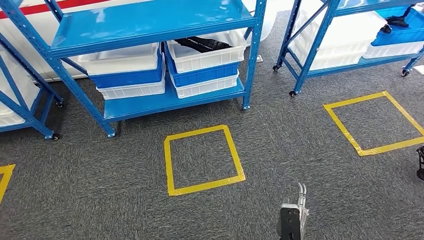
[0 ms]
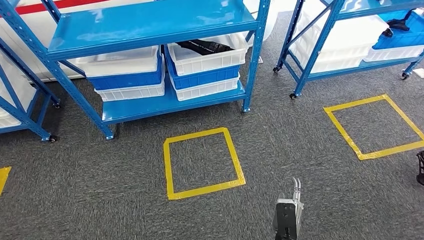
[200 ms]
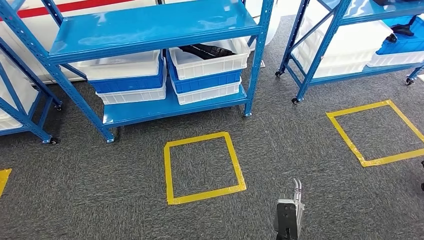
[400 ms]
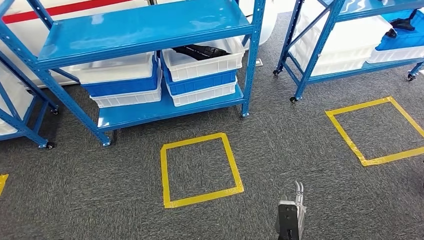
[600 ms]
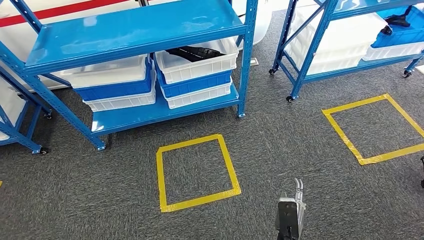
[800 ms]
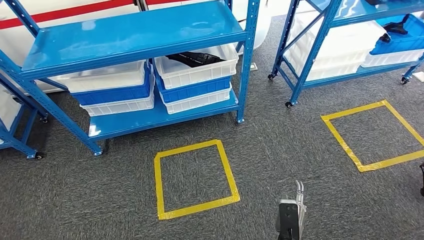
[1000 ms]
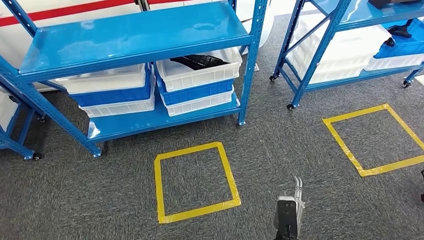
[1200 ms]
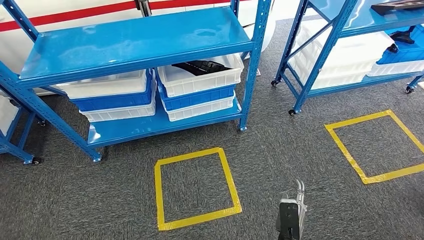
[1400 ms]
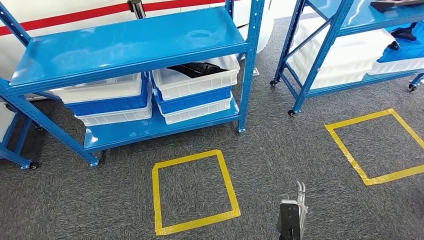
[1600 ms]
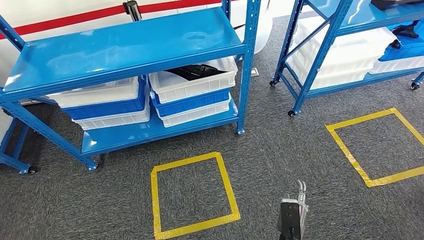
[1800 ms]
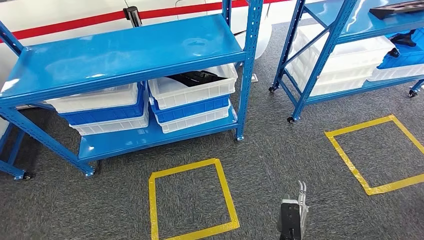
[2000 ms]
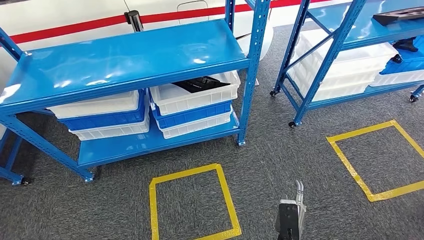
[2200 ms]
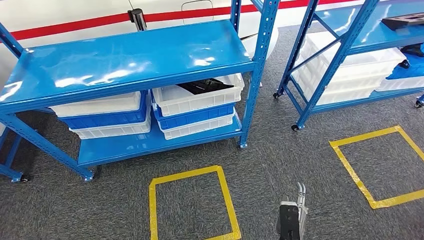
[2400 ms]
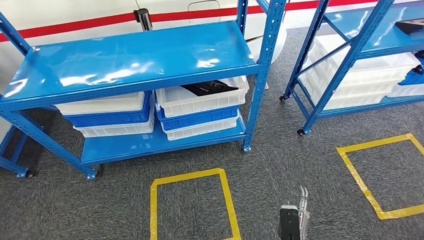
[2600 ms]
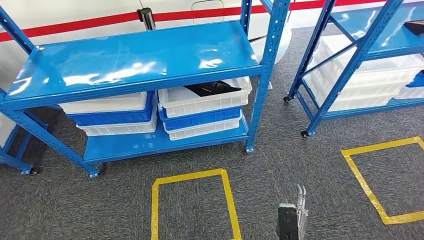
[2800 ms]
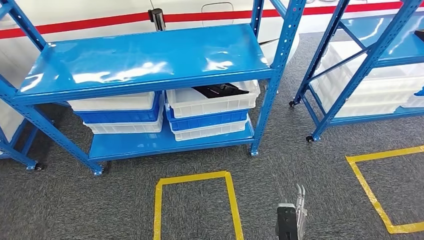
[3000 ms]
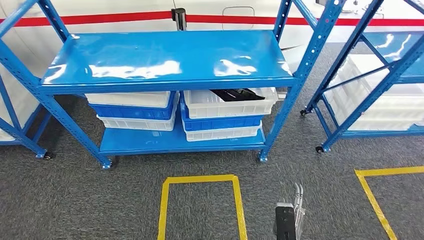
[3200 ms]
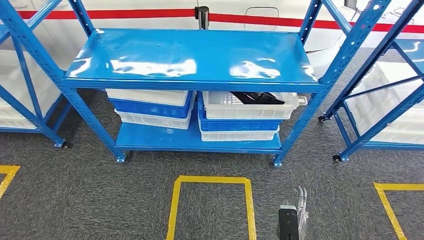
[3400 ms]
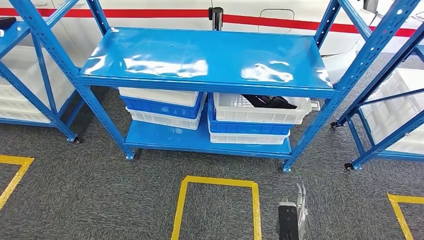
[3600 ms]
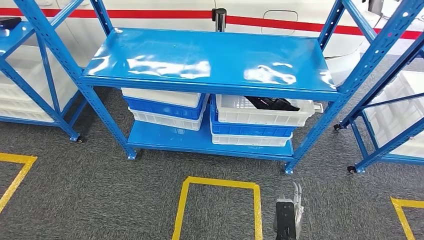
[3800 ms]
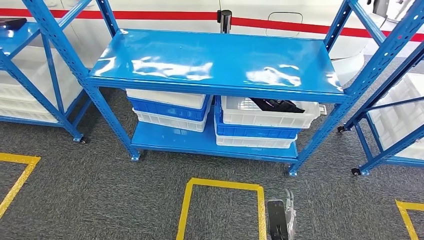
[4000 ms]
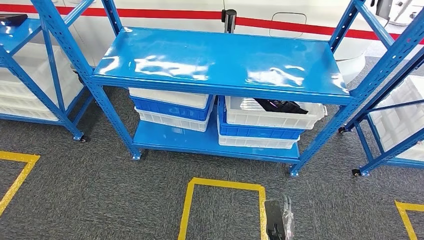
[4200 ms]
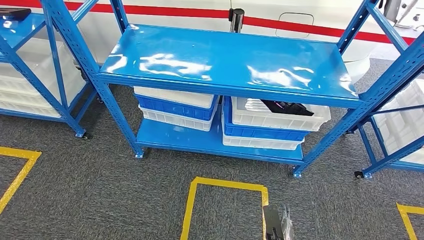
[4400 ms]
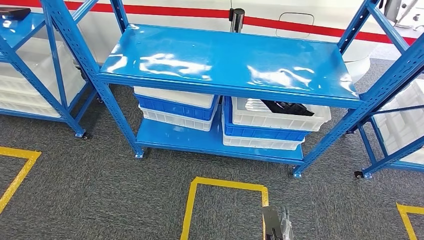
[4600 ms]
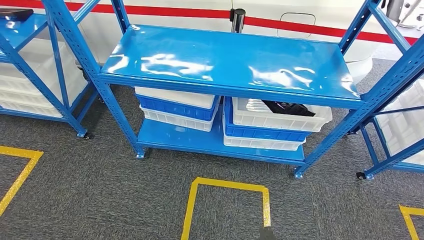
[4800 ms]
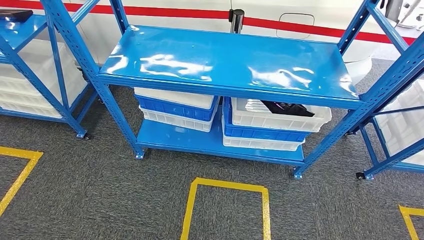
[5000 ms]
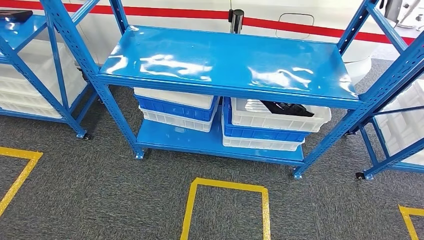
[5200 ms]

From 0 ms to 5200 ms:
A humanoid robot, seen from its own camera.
Step, from 0 ms to 5200 ms: Move to the initial position of the shelf.
